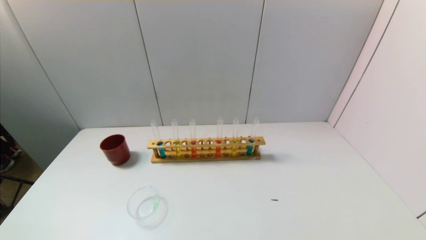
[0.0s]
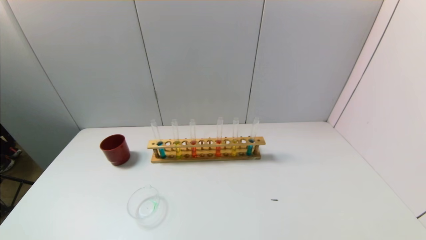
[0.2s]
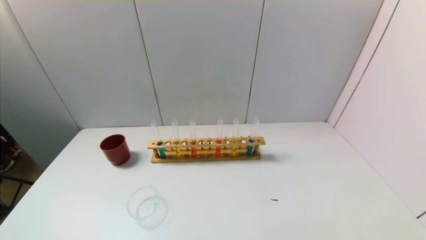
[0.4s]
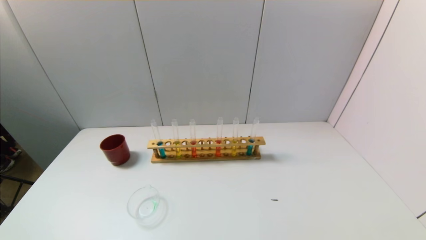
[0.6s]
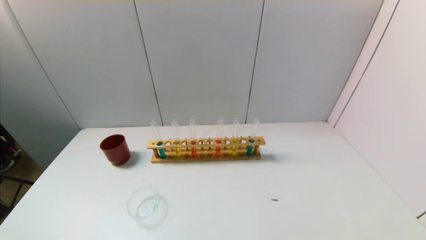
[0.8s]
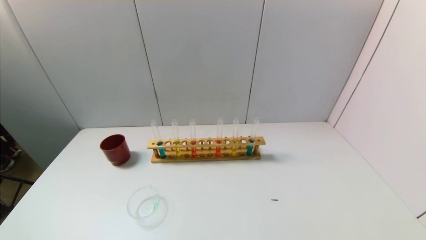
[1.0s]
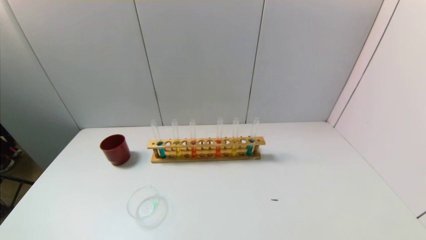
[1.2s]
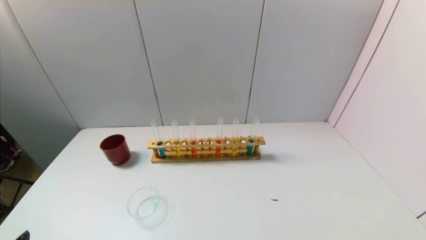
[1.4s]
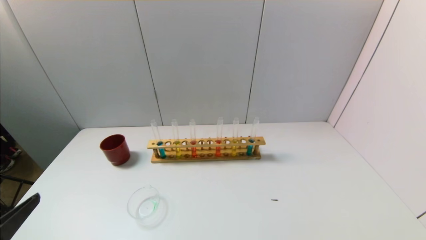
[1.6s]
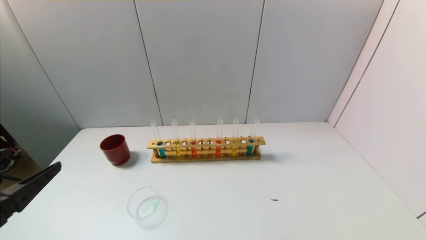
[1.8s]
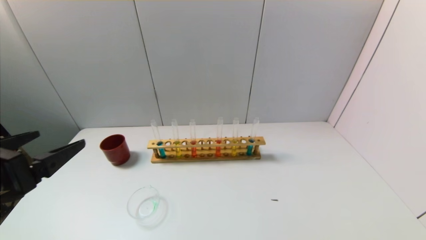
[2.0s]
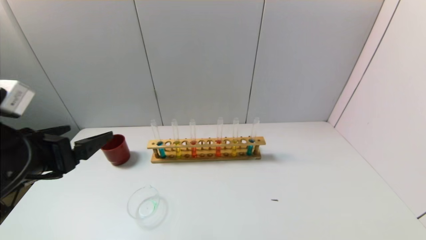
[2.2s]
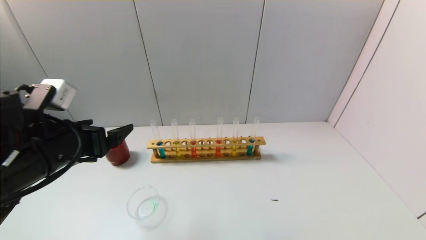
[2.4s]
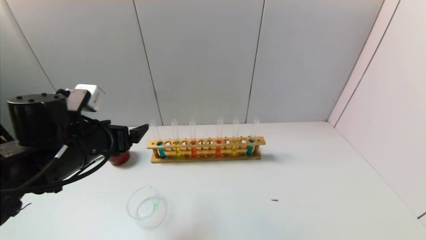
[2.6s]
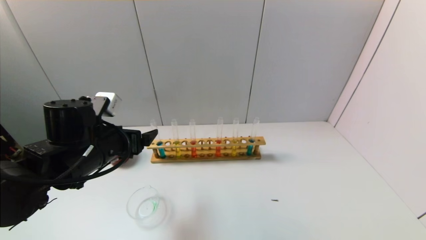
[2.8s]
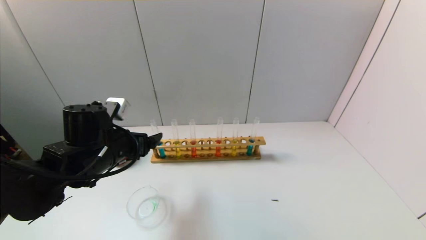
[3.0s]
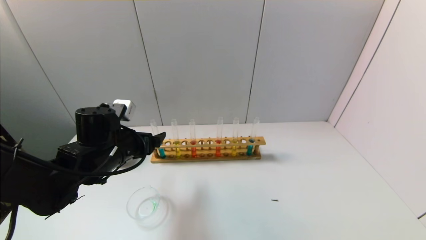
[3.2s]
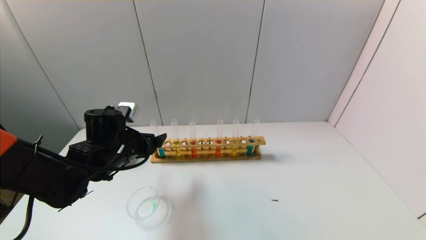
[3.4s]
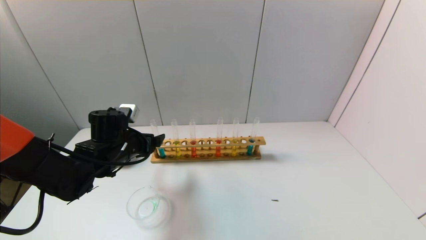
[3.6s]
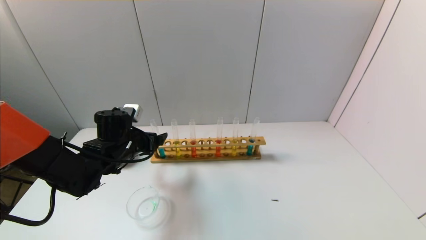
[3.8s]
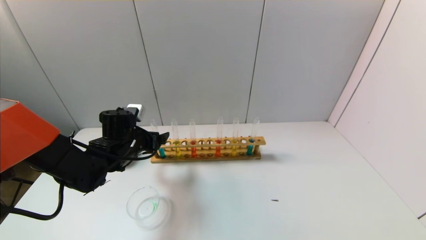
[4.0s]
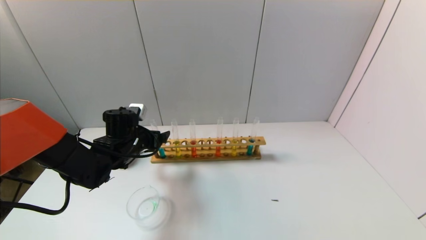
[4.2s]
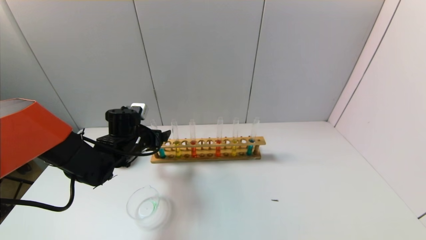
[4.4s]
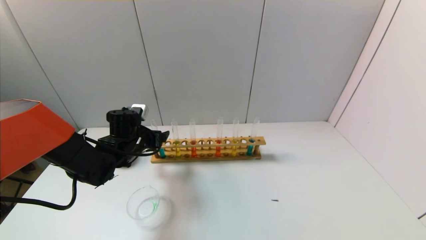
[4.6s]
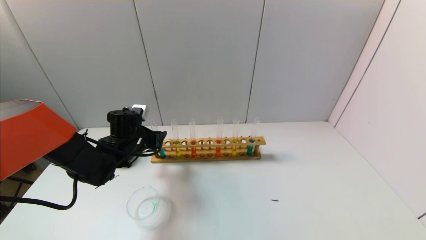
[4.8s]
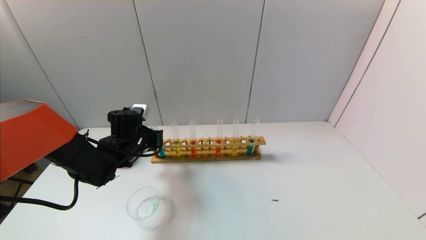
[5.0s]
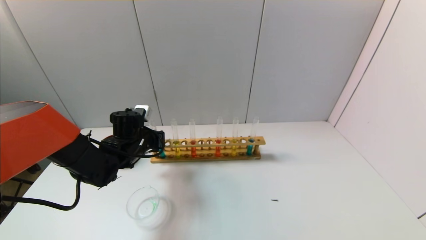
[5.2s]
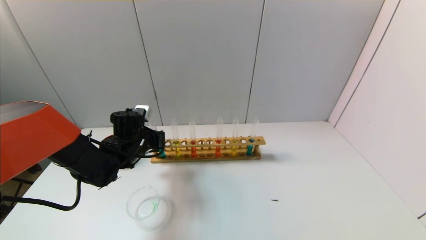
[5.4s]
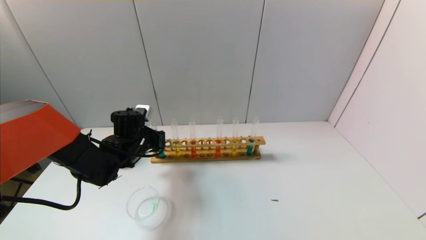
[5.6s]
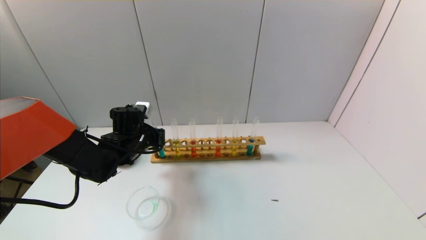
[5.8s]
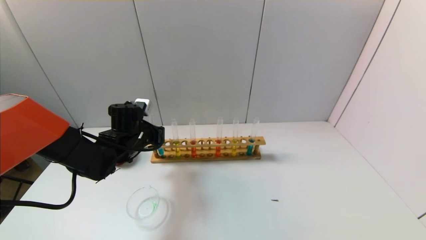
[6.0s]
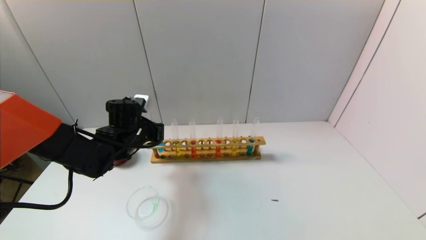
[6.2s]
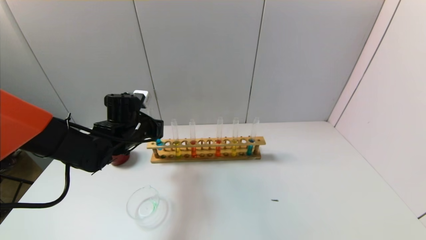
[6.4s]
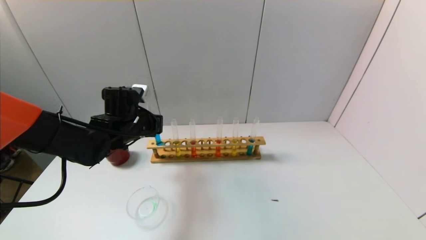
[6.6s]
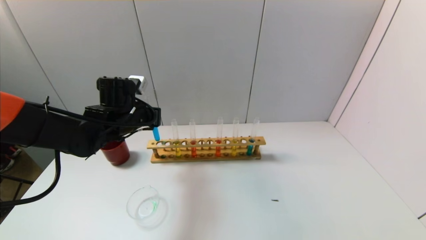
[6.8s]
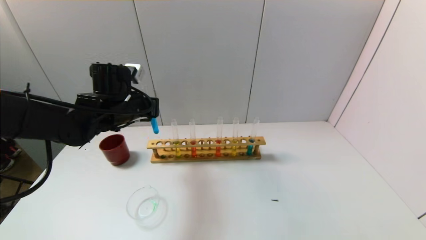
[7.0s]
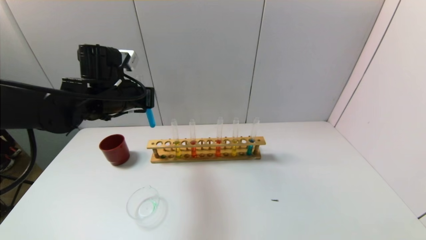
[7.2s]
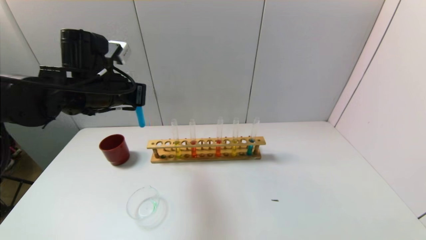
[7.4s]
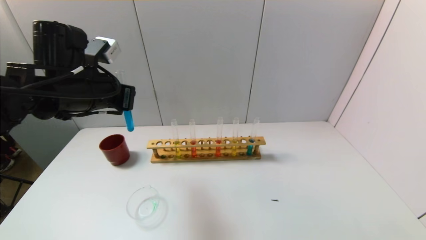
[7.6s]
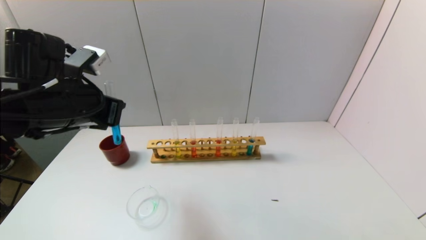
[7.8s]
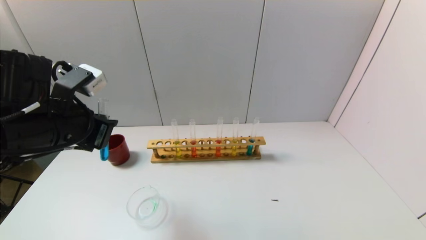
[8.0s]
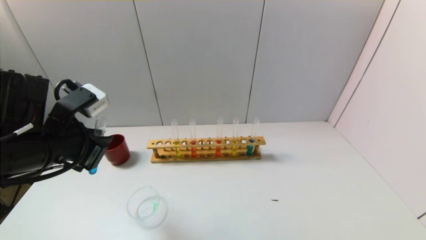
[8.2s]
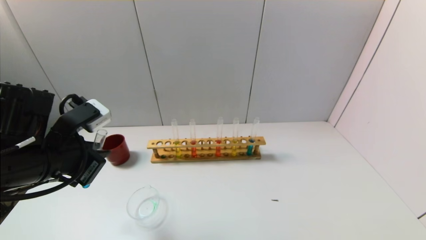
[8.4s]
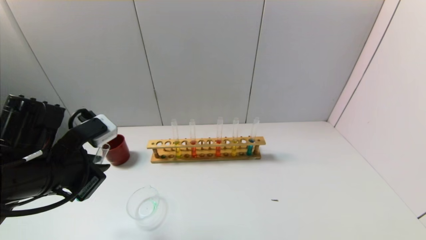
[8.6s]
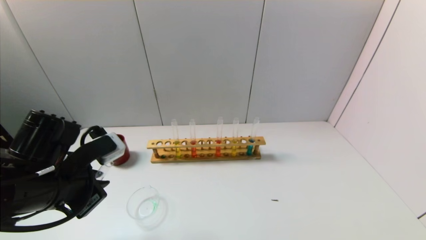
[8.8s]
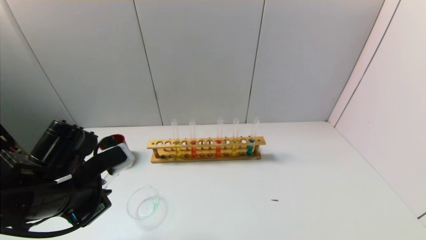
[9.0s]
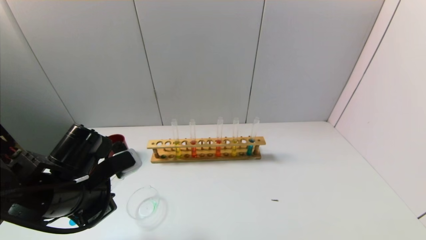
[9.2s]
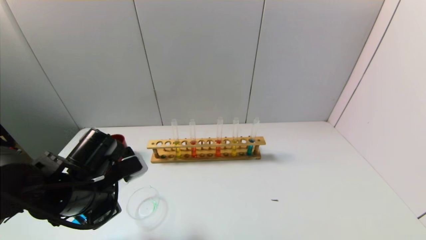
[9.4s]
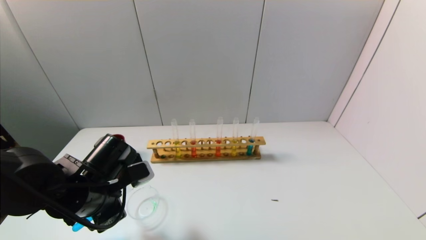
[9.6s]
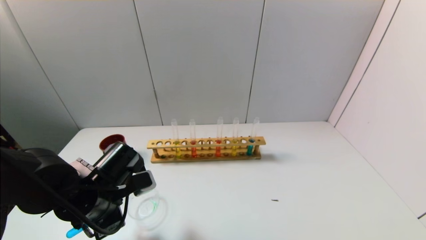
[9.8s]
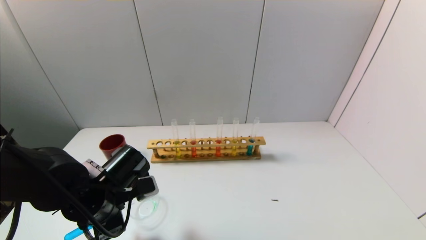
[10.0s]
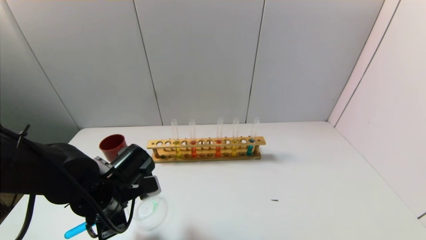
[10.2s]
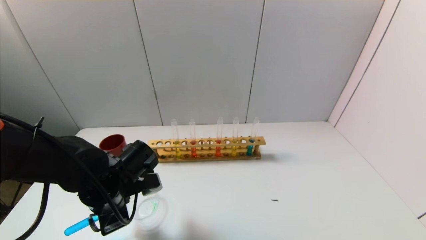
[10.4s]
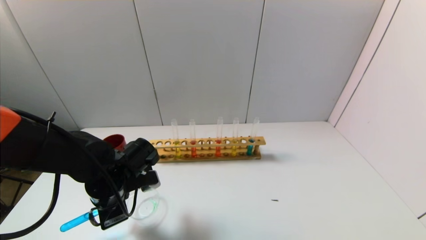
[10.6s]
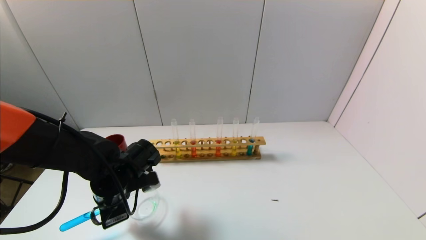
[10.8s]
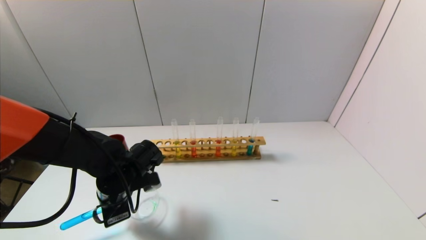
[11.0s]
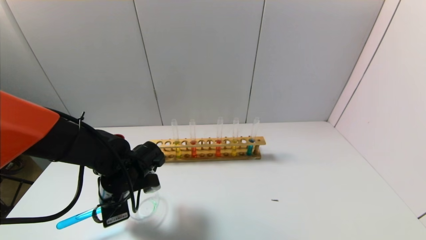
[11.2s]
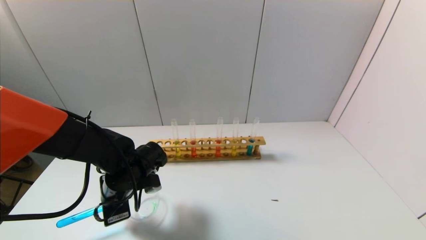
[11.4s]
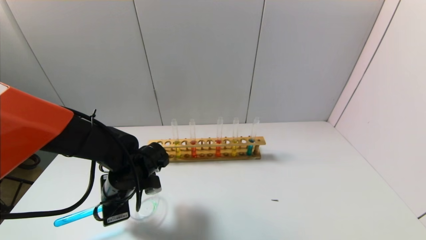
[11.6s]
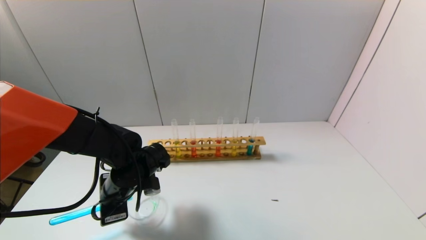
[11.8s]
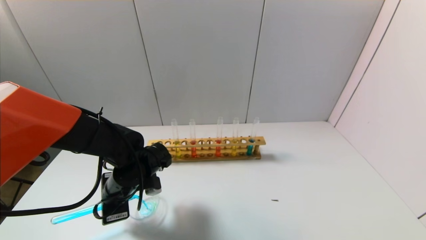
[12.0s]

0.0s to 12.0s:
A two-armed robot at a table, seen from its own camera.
Task of the whole recording: pick up the test tube with yellow pigment and the test tube with blue pigment by grippers and pour them into the beaker.
Step, 0.0s to 5.4s: Grasp the blue reagent with the left gripper.
0.0s to 1.6s: The left gripper shifts some 15 cm upward and forward.
1.6s to 3.0s: The left gripper goes some 25 cm forward and to the right.
3.0s to 4.4s: The left gripper moves forward and downward, roughly 10 cm.
4.4s to 6.0s: The left gripper closes its fingers.
6.0s to 7.6s: The left gripper moves upward and backward, approximately 20 cm.
7.6s to 9.0s: The left gripper travels downward and backward by approximately 15 cm.
9.0s to 10.4s: The left gripper goes roughly 5 cm downward.
10.4s to 12.0s: There are only small adjustments of the grippers.

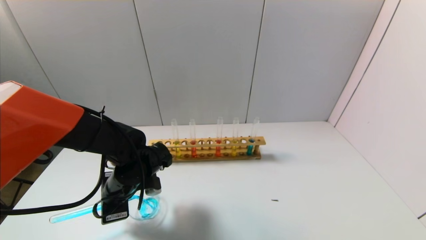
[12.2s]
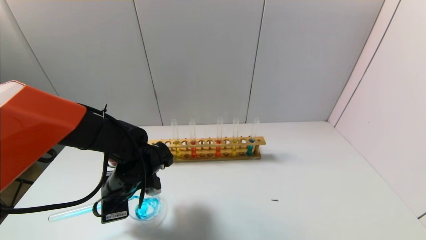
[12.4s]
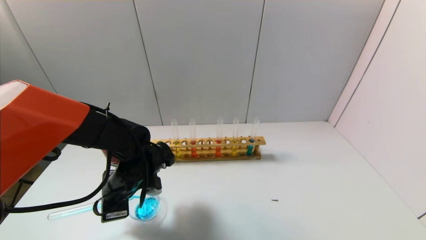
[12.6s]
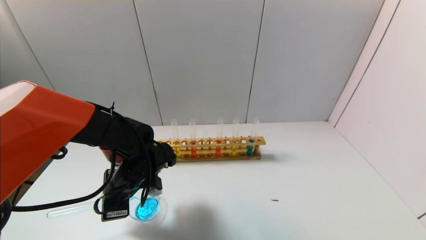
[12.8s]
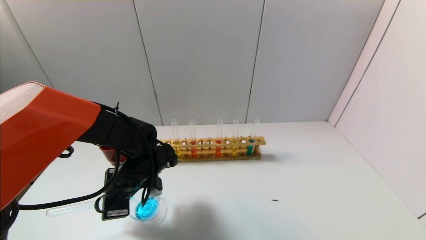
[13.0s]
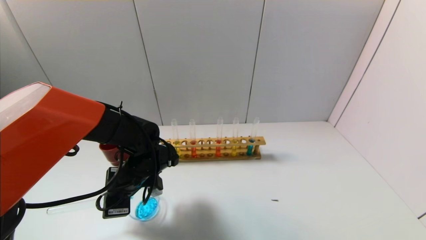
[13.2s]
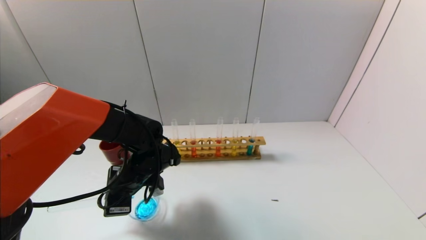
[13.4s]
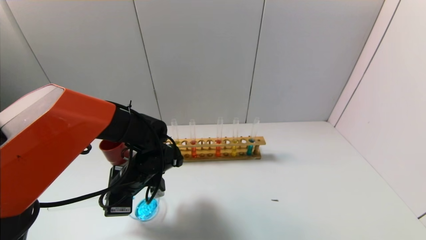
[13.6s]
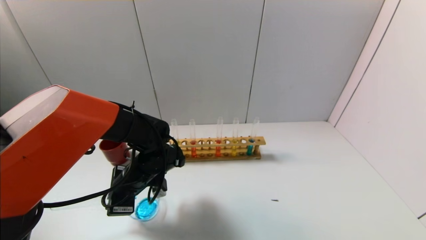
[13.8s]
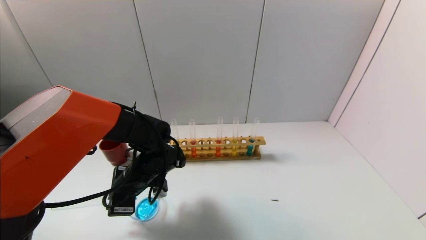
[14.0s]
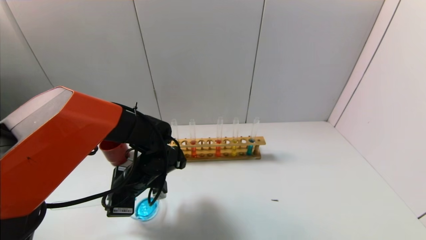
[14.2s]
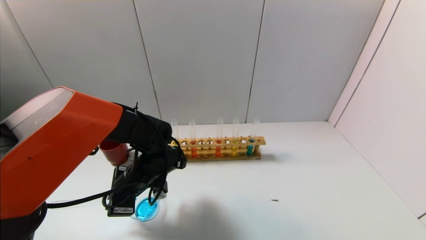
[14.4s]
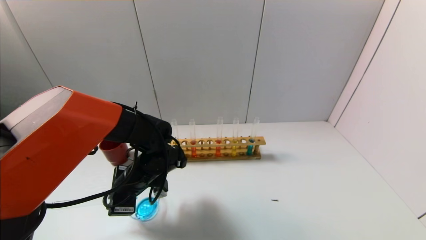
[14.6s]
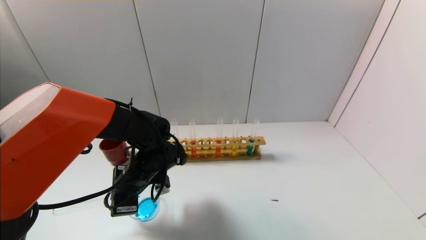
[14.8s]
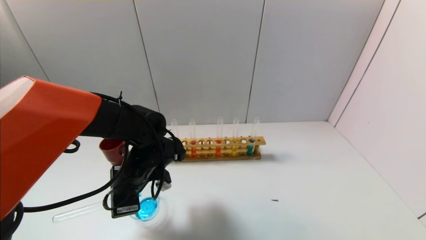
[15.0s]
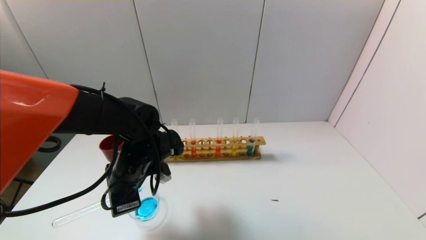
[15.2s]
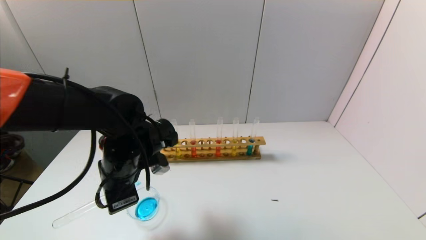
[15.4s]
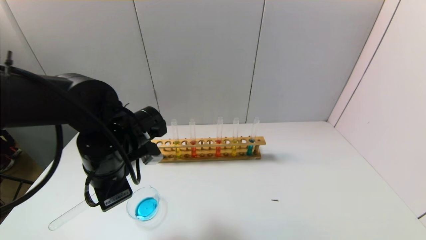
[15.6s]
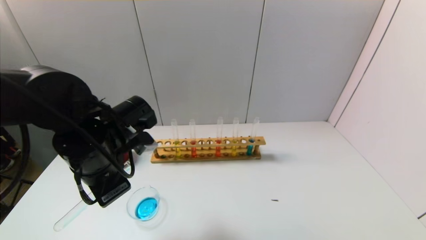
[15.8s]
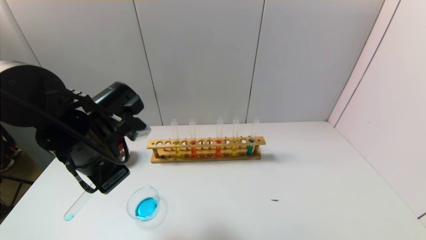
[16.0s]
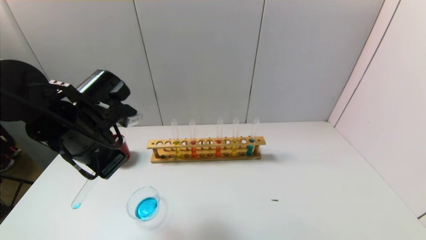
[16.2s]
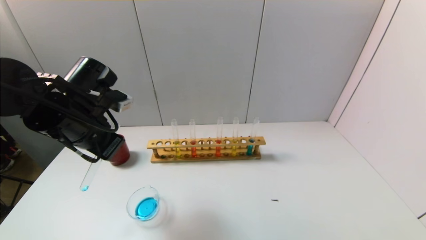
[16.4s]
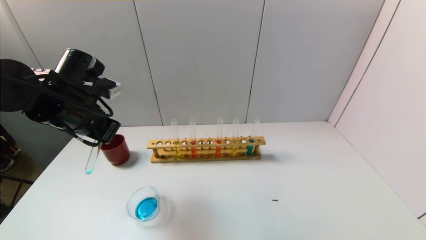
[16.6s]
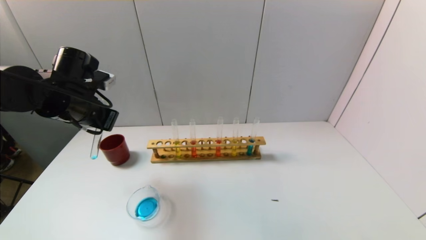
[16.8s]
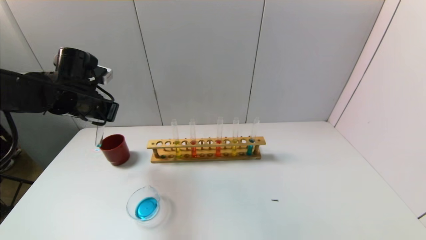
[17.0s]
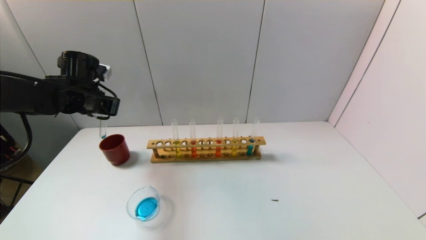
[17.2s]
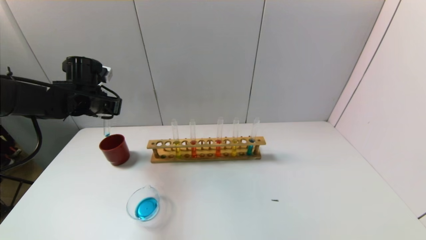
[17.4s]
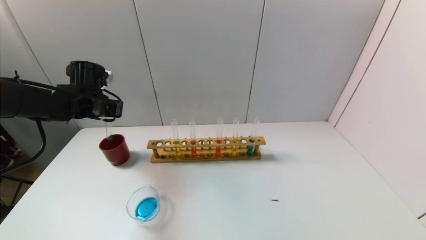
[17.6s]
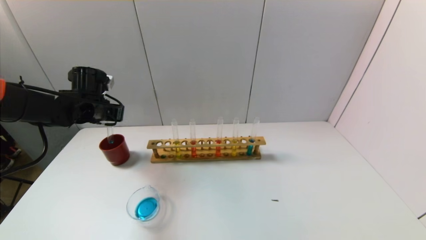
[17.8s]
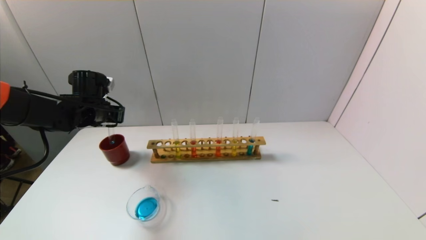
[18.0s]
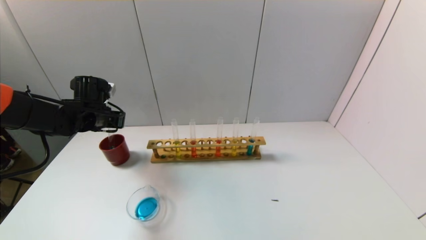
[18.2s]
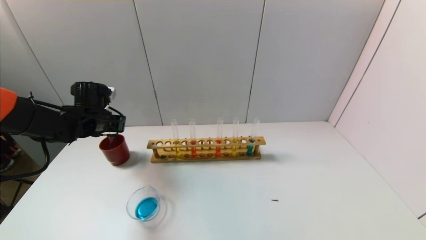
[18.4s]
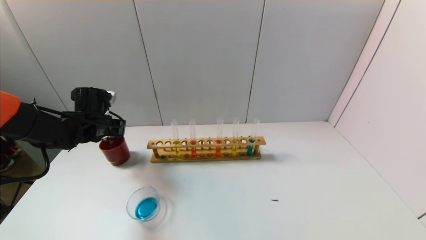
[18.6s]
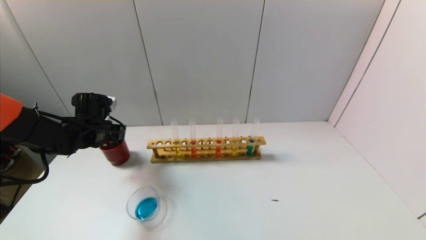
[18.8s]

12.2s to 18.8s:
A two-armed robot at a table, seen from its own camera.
Task of the whole recording: pick up the test tube with yellow pigment and the test tube with blue pigment by grippers and pour them into the beaker.
12.2s to 13.8s: The grippers make only small movements.
13.8s to 15.4s: The left gripper heads upward, covering approximately 5 cm.
15.4s to 17.2s: The left gripper moves to the left, forward and upward, about 20 cm.
17.2s to 18.8s: The left gripper goes roughly 10 cm downward.
